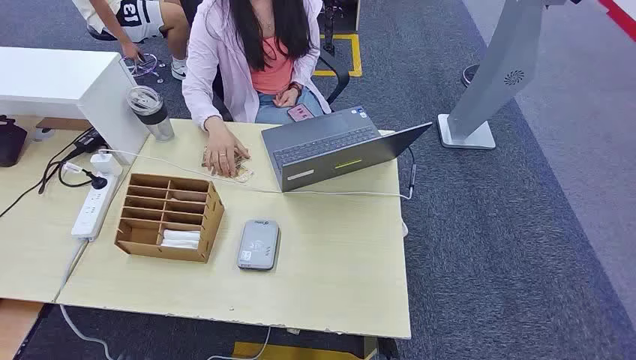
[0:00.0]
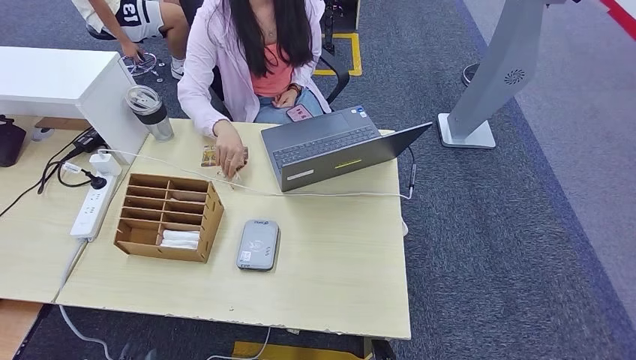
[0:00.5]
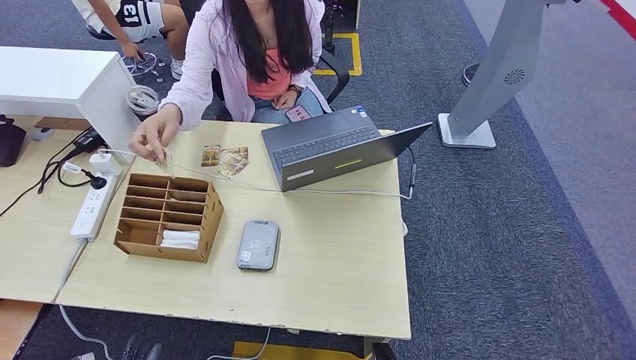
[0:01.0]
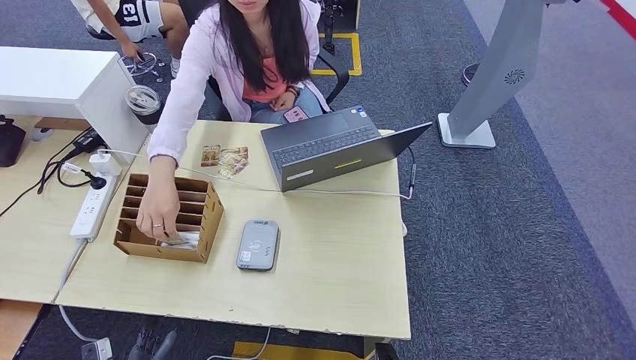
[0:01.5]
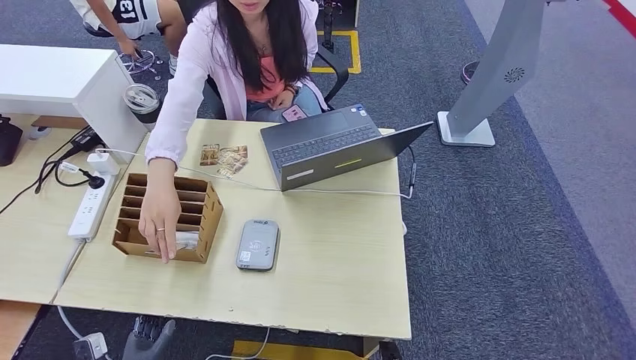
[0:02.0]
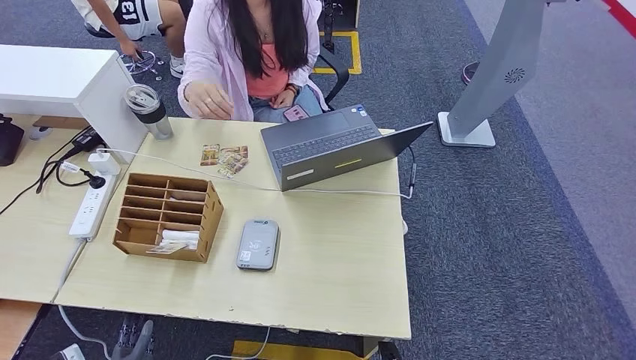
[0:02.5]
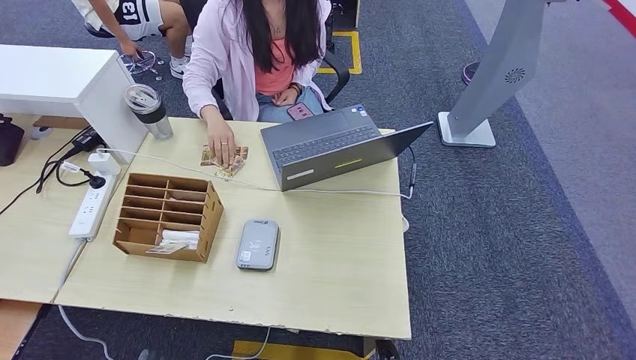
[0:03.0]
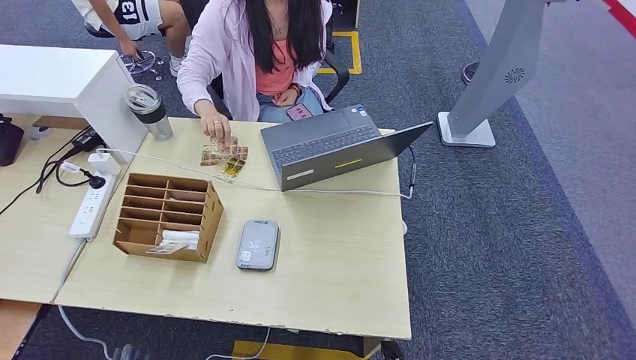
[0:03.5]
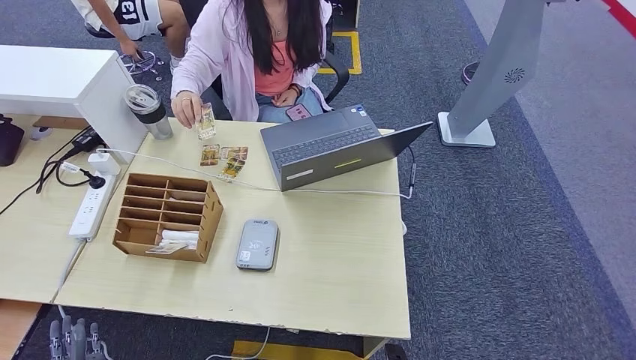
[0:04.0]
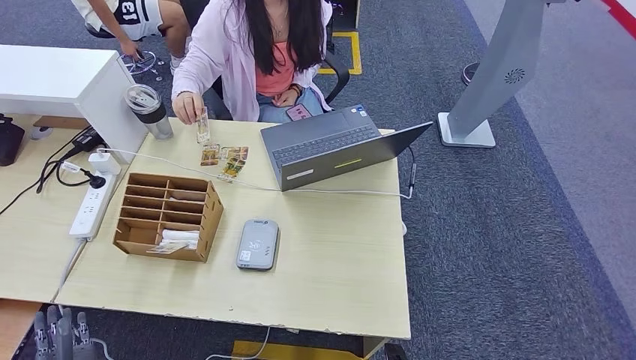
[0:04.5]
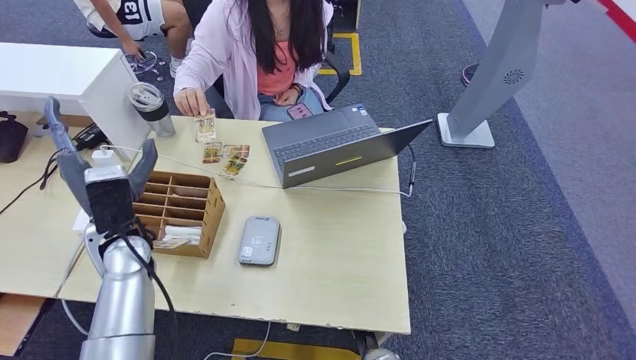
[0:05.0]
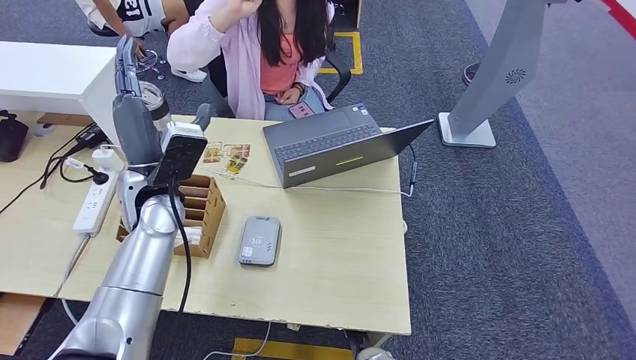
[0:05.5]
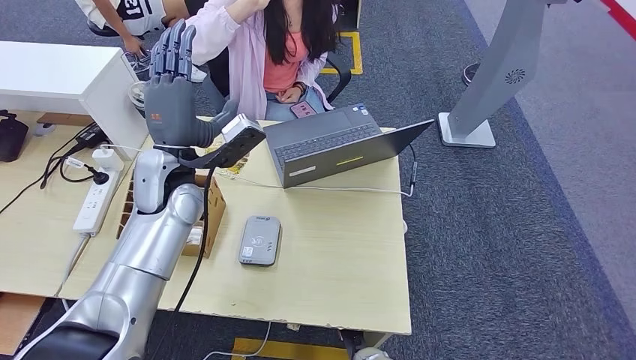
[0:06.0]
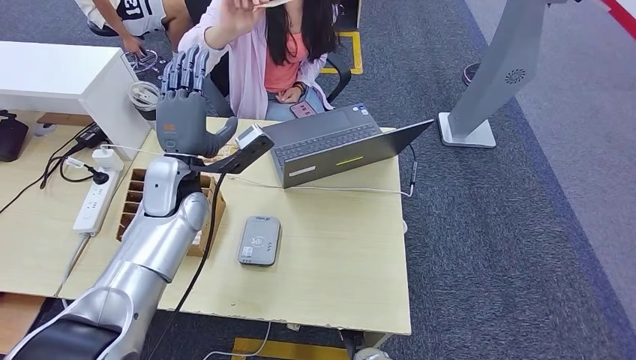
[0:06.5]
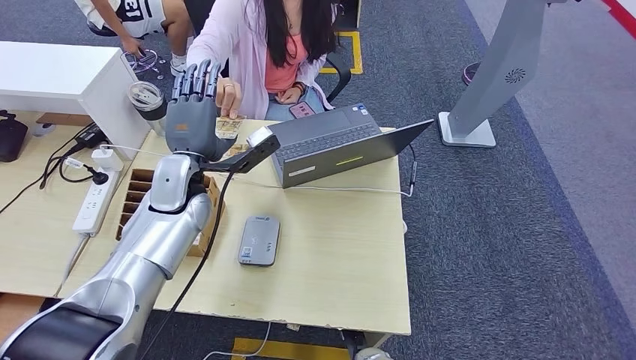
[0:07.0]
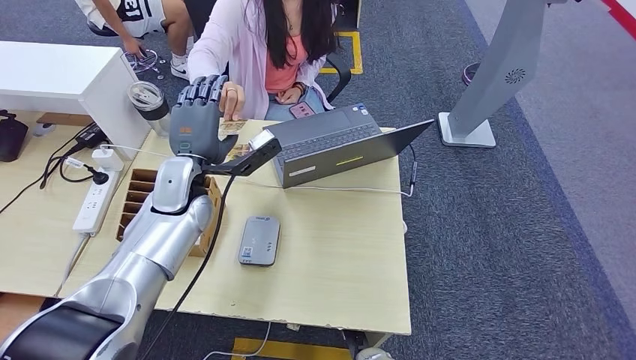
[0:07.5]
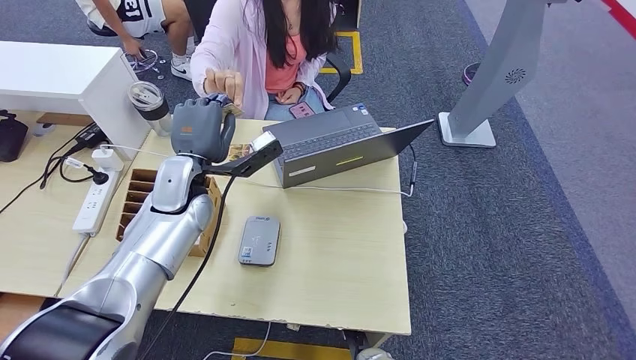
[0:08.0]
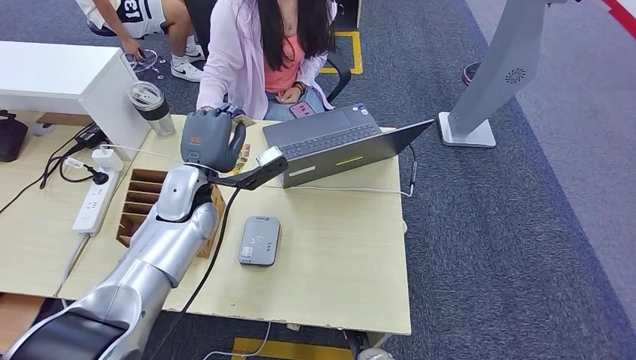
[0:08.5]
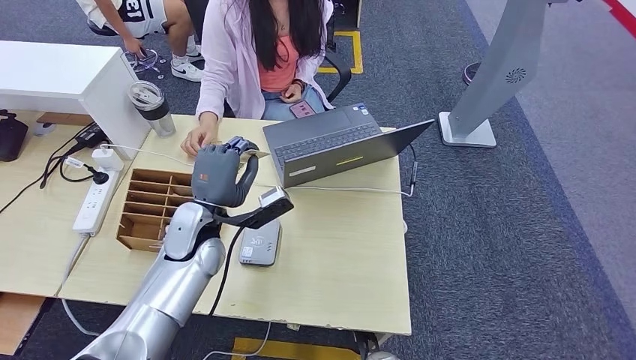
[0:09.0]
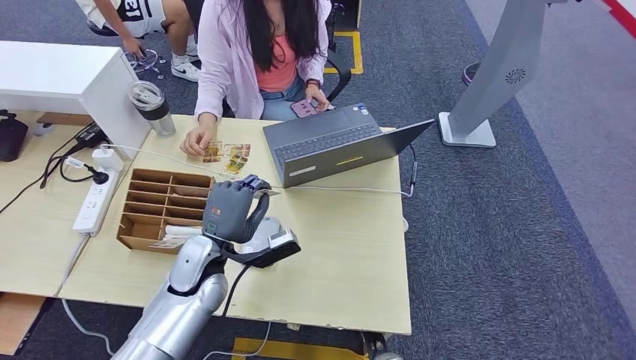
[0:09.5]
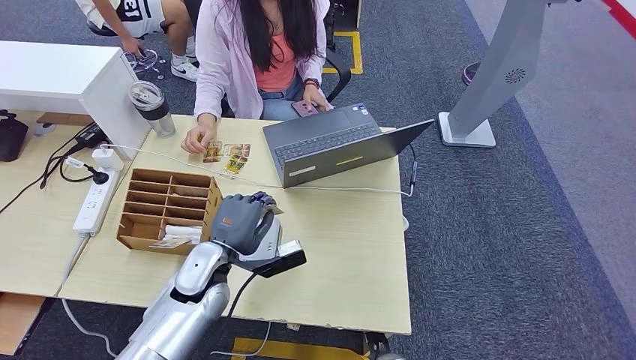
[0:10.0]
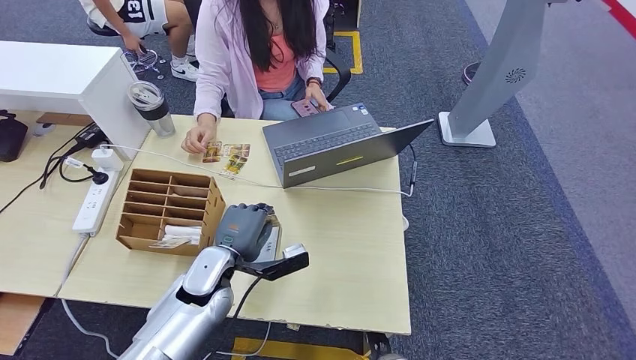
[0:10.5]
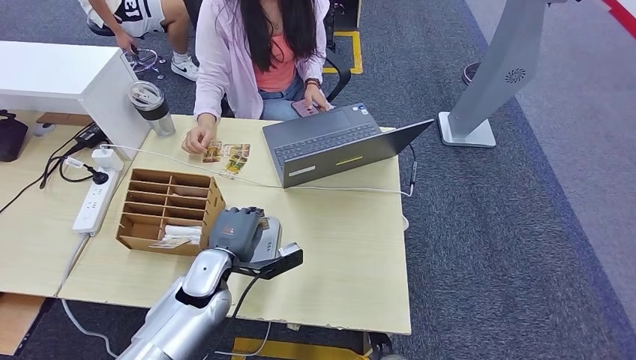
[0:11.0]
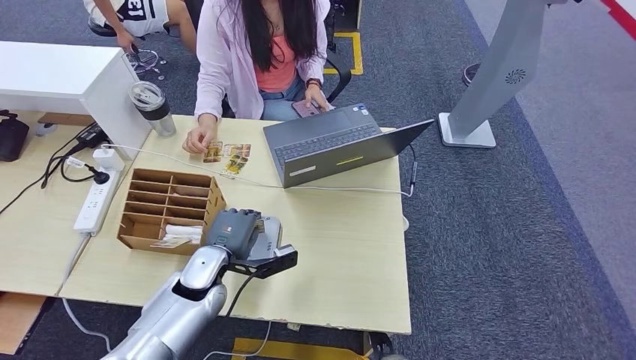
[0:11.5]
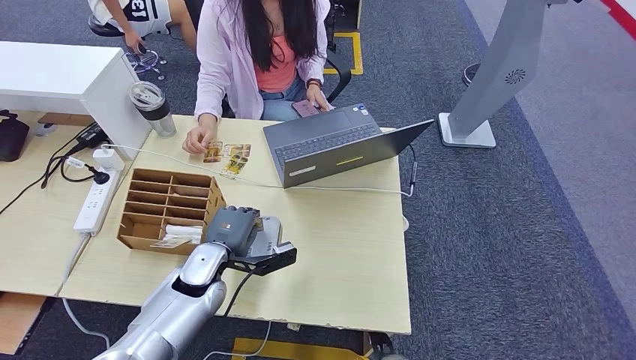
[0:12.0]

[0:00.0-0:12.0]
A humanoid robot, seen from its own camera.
Step, 0:00.0 to 0:08.5: Take the ID card from the person's hand.
0:02.0 to 0:04.0: The left hand goes roughly 5 cm upward.
0:08.0 to 0:10.0: The left hand goes about 15 cm downward and backward.

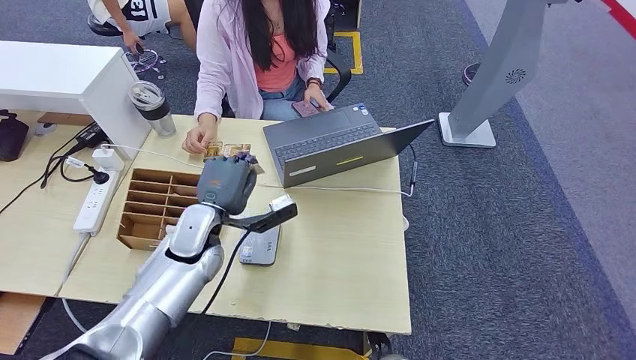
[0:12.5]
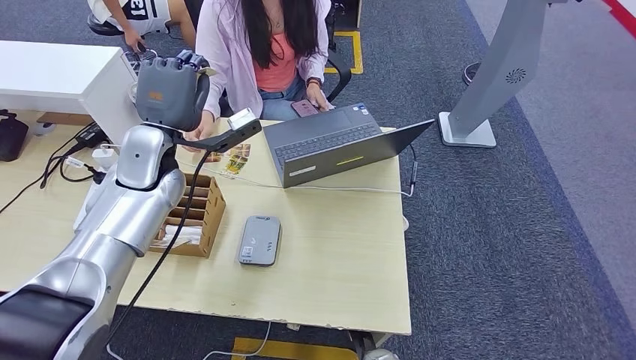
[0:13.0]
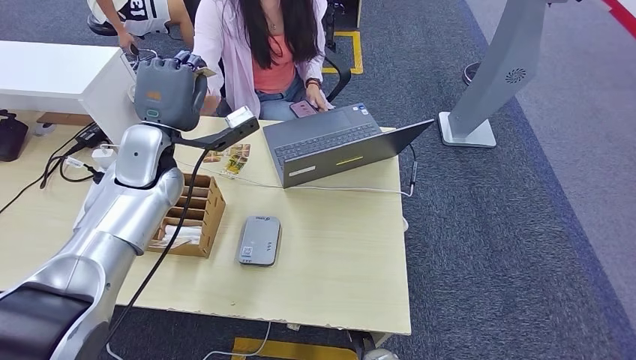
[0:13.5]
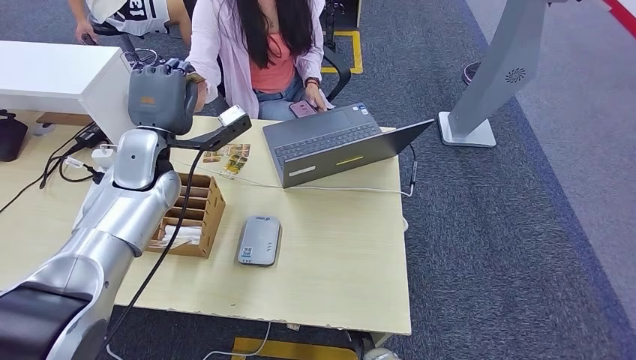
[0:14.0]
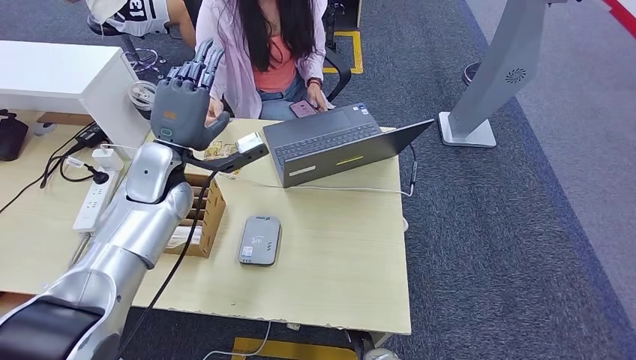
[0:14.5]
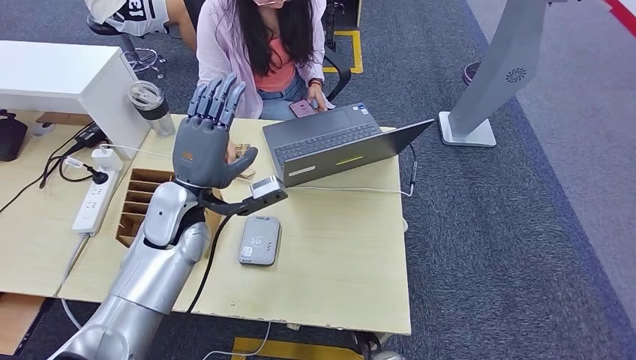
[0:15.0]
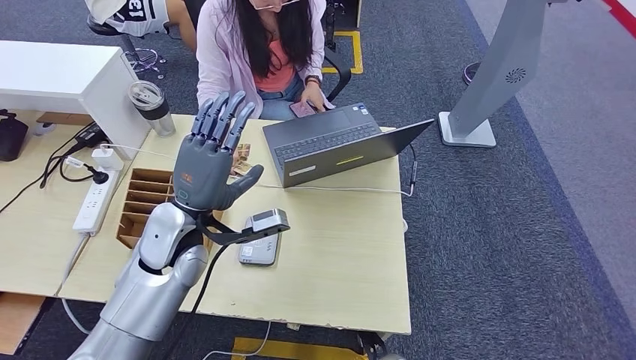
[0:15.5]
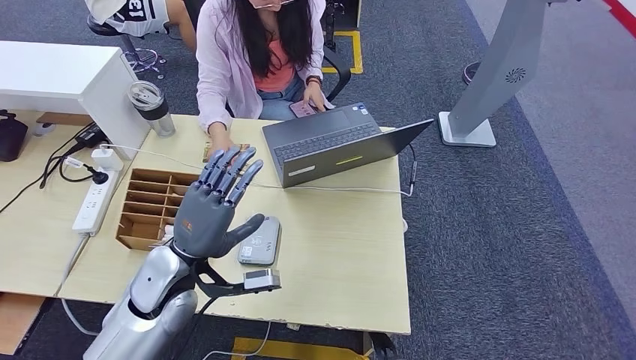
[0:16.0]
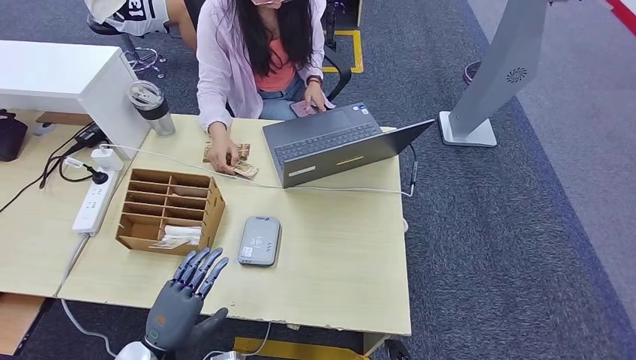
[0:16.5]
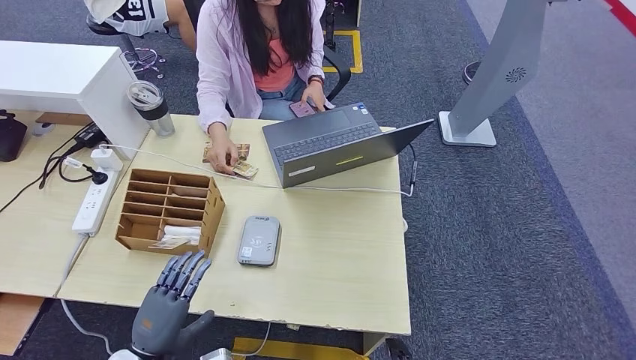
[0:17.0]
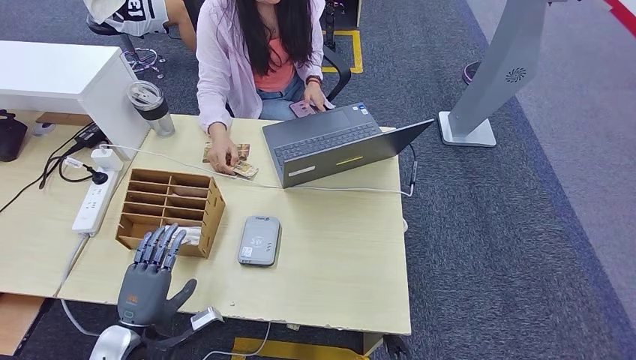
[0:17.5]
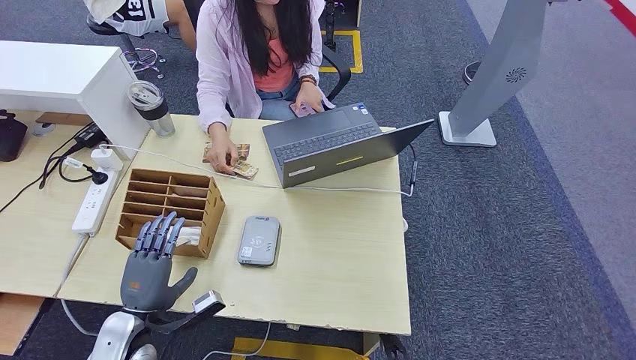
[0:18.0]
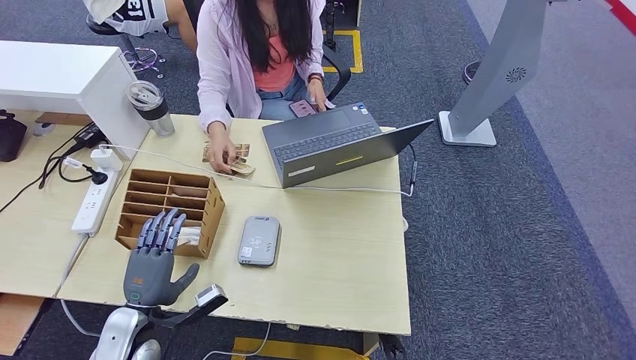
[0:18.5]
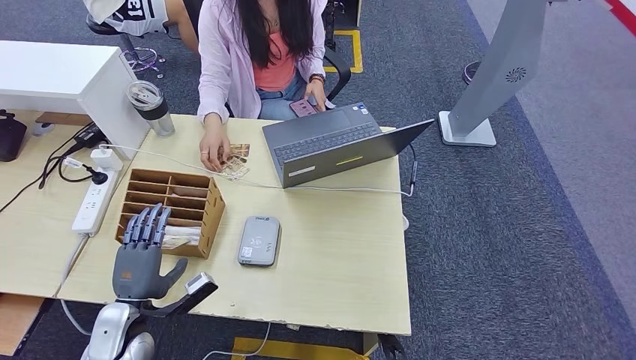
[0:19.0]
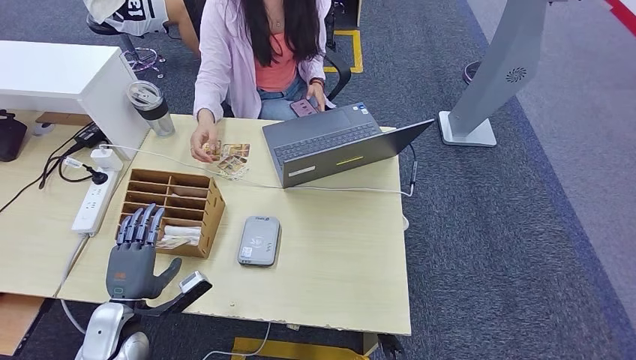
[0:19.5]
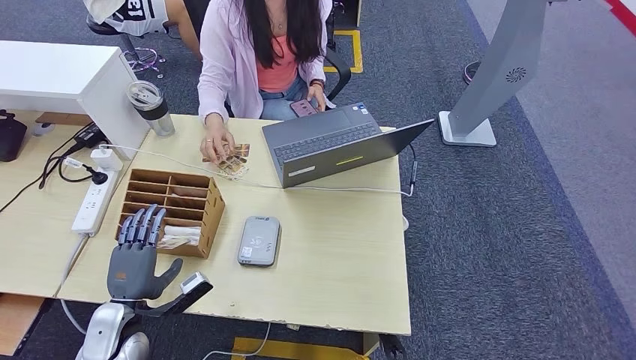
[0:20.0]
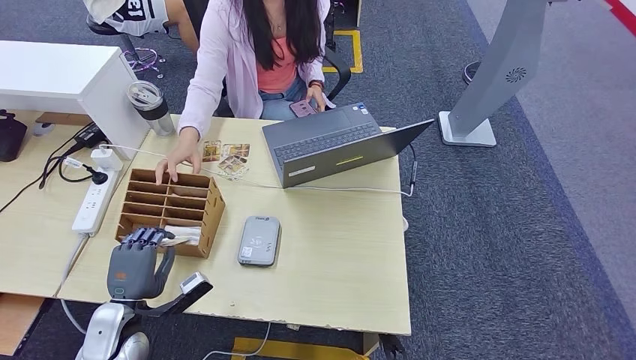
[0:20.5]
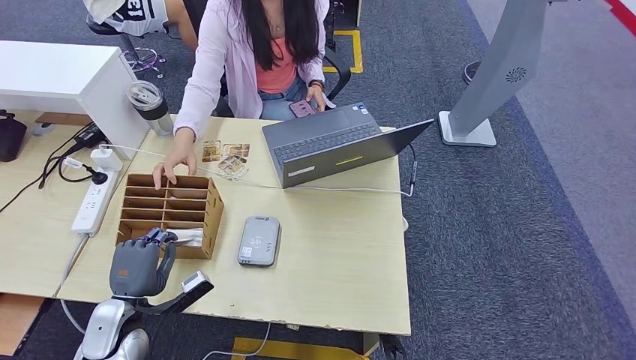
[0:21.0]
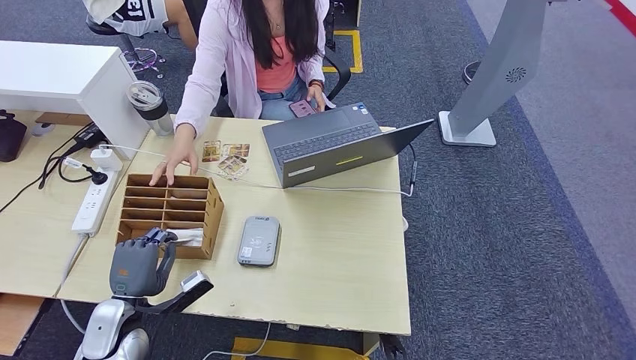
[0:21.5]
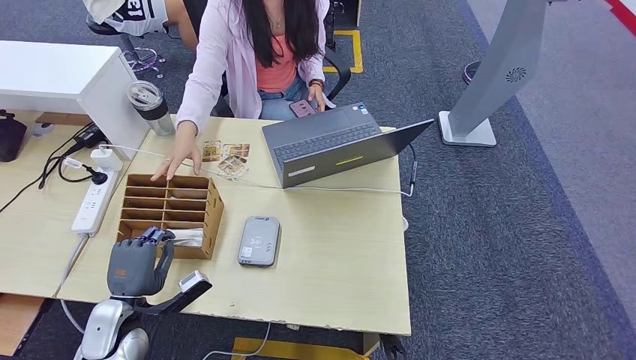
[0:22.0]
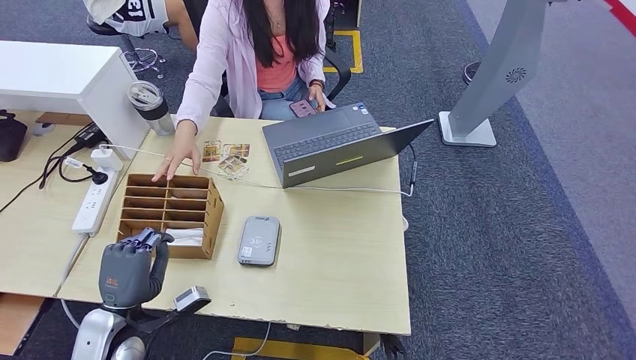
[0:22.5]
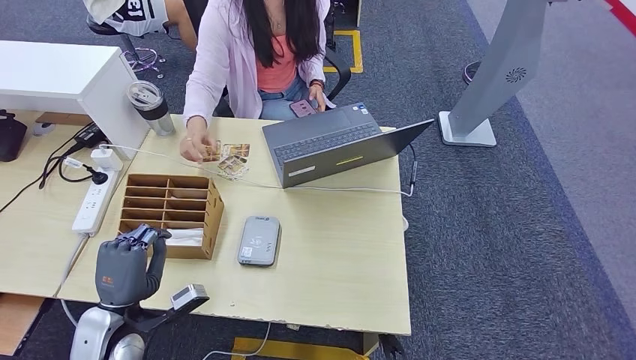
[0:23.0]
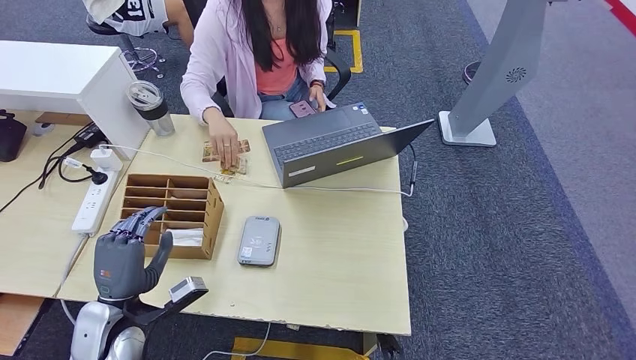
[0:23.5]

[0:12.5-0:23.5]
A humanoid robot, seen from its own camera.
Step, 0:13.5 to 0:16.0: Hand the ID card to the person.
0:12.5 to 0:14.5: The left hand goes roughly 10 cm upward and forward.
0:14.5 to 0:16.0: The left hand heads backward and downward, covering approximately 15 cm. Meanwhile the right hand ends up approximately 5 cm from where it was.
0:16.0 to 0:18.0: The left hand travels downward and to the left by some 20 cm.
0:18.0 to 0:20.0: The hands move only a little.
0:20.0 to 0:21.5: Neither hand changes place.
0:21.5 to 0:23.5: The hands make only small movements.
